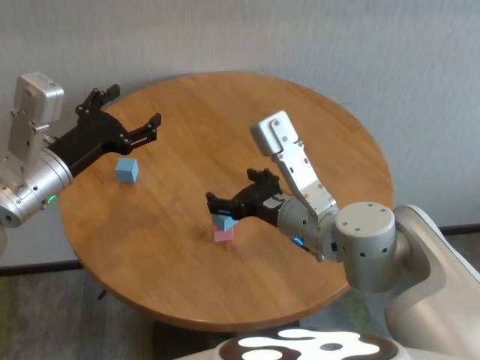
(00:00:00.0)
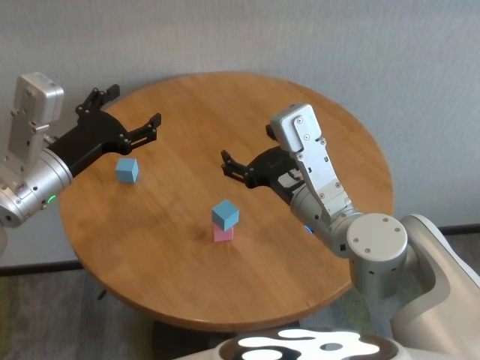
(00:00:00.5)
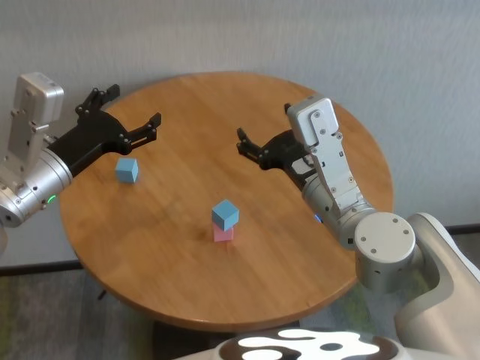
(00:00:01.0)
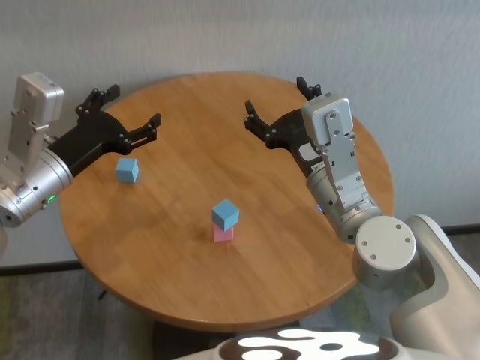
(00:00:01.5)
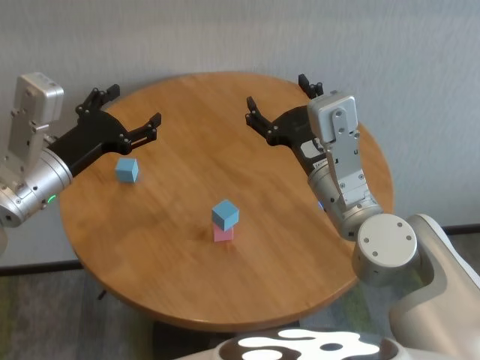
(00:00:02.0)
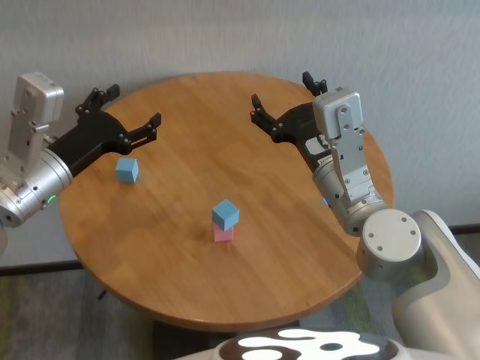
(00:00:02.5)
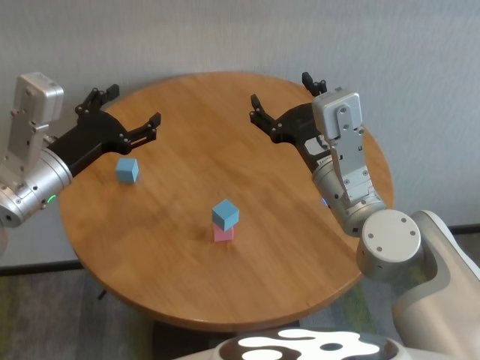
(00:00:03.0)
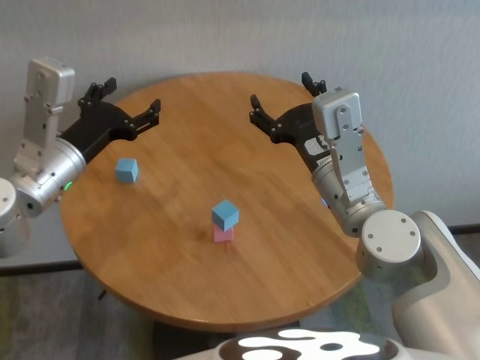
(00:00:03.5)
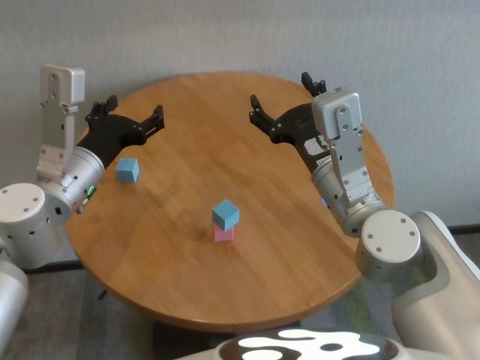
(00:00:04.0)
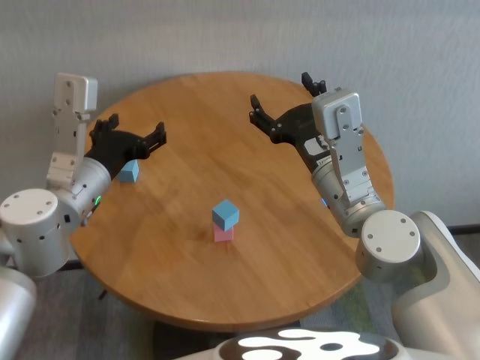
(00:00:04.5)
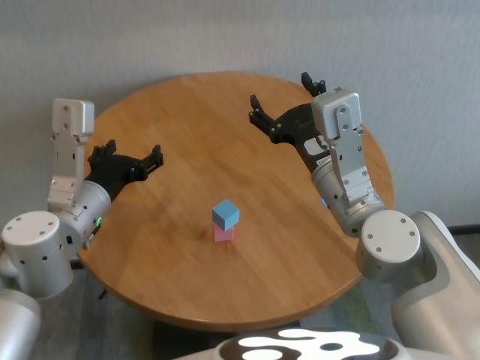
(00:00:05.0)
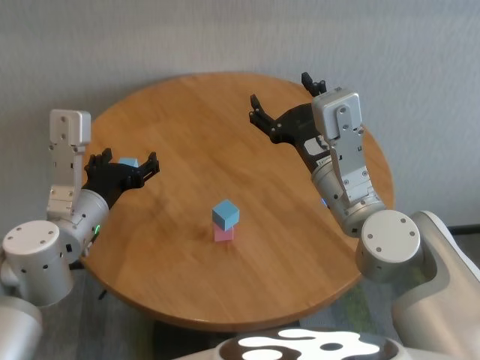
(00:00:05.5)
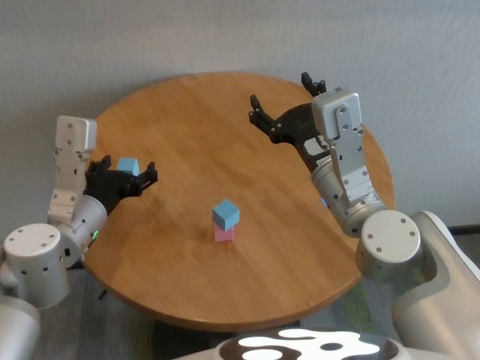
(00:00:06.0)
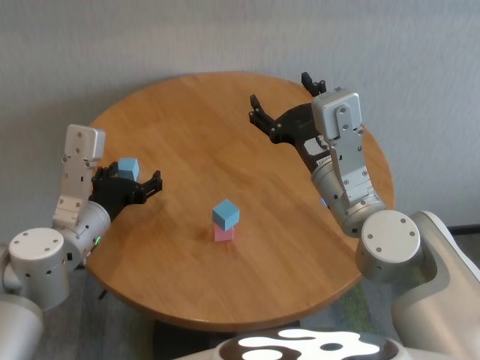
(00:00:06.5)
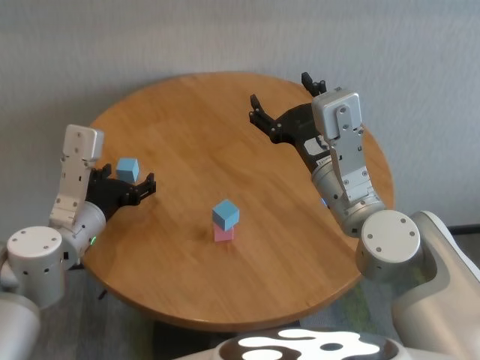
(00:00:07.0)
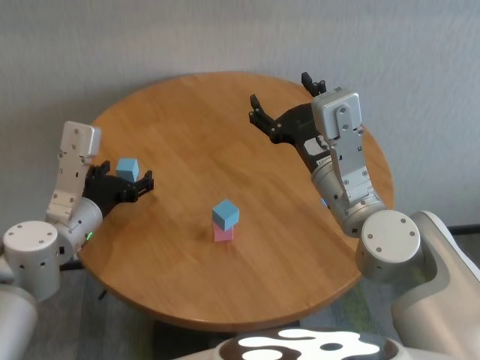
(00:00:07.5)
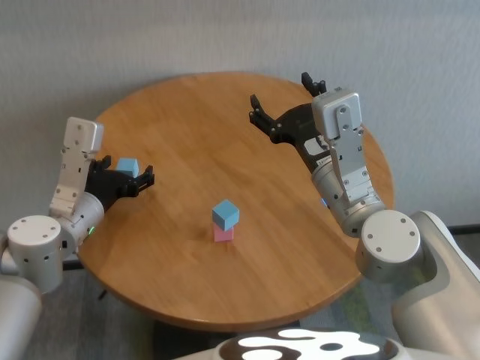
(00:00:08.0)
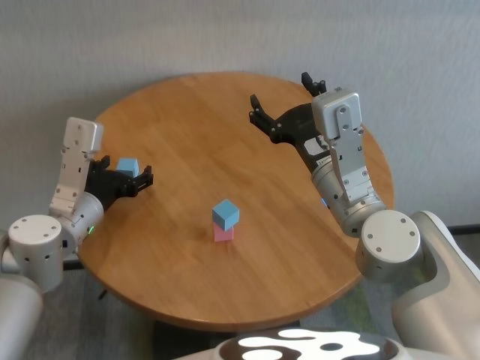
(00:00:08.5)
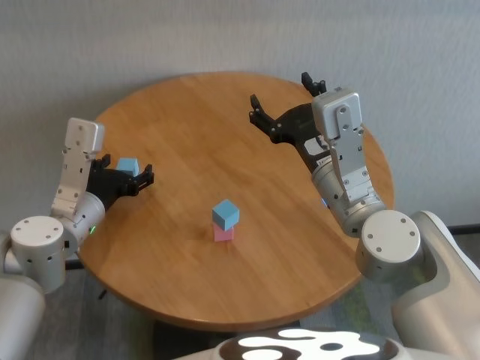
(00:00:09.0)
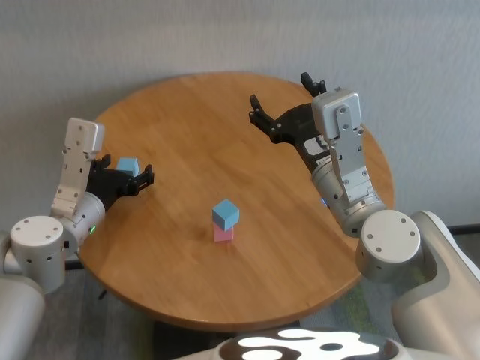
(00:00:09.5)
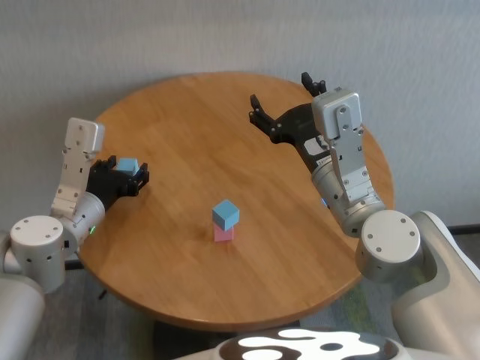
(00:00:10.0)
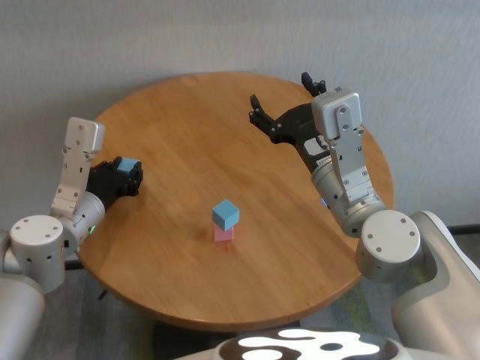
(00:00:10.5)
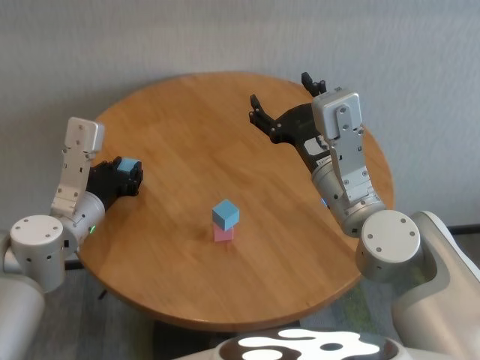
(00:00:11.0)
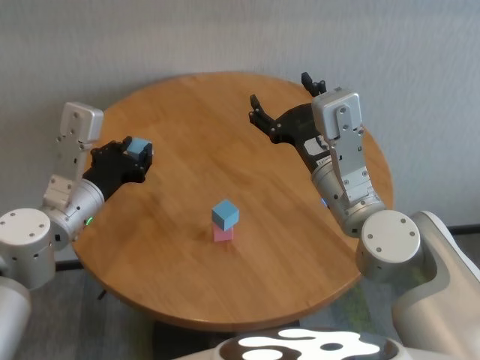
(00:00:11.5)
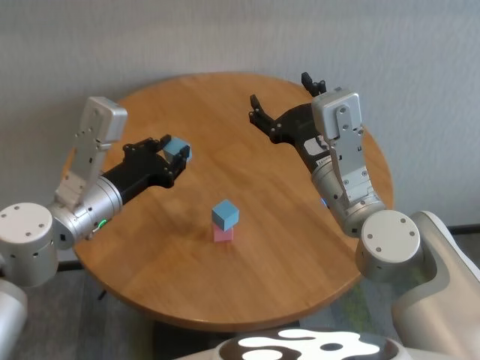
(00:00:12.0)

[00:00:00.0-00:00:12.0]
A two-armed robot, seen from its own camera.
Task of the whole recording: stack building blocks on the table.
Step, 00:00:00.0 to 00:00:11.0: Grasp the blue building block with left gripper.

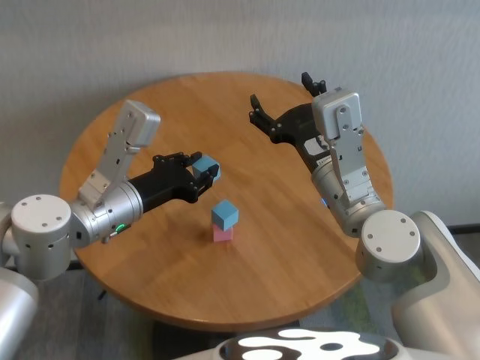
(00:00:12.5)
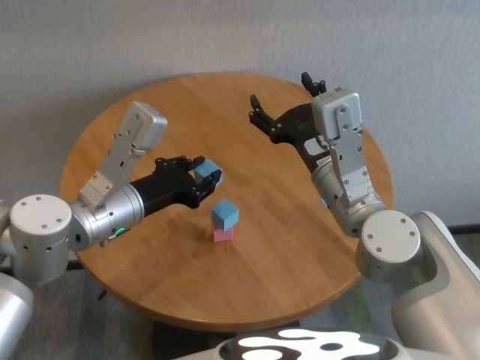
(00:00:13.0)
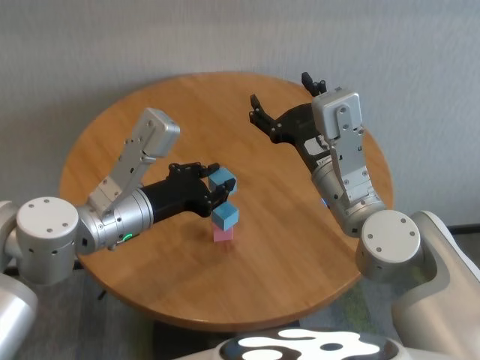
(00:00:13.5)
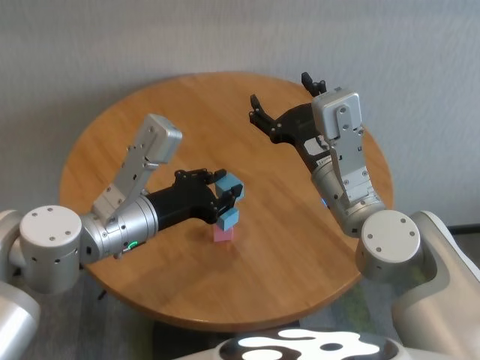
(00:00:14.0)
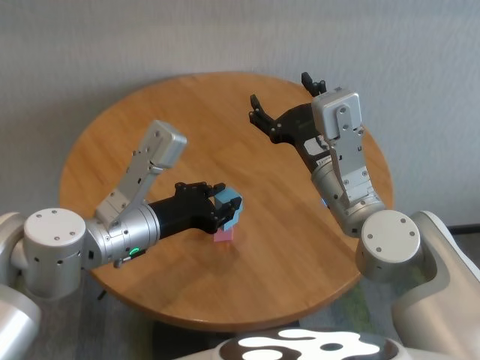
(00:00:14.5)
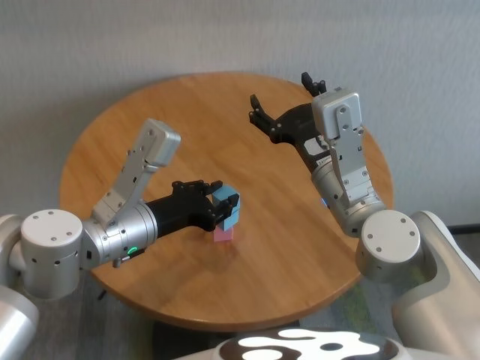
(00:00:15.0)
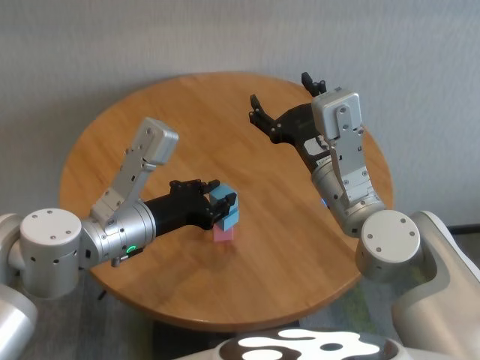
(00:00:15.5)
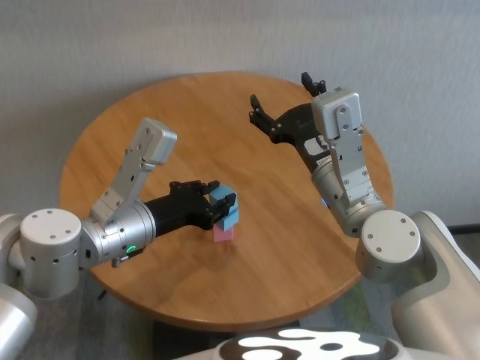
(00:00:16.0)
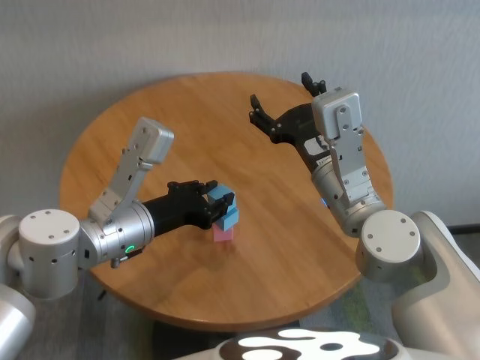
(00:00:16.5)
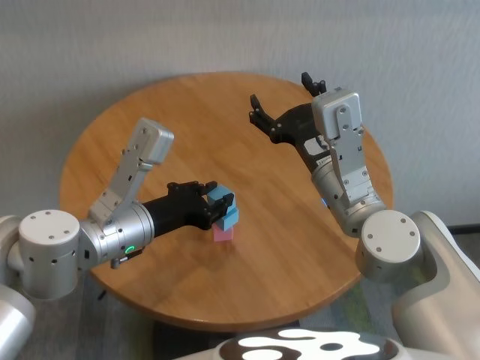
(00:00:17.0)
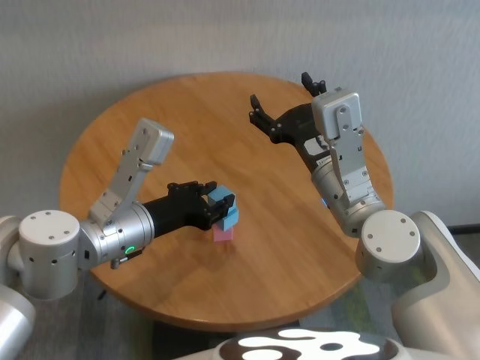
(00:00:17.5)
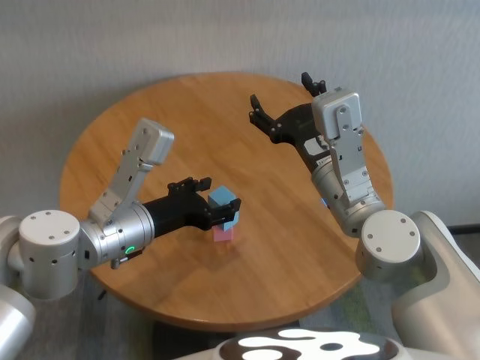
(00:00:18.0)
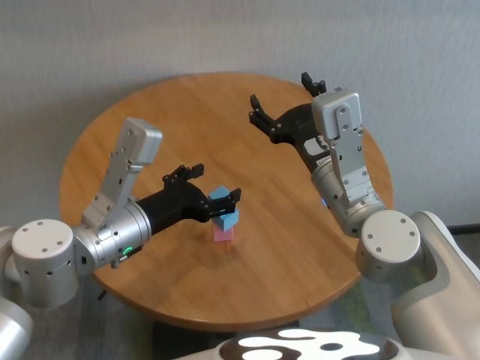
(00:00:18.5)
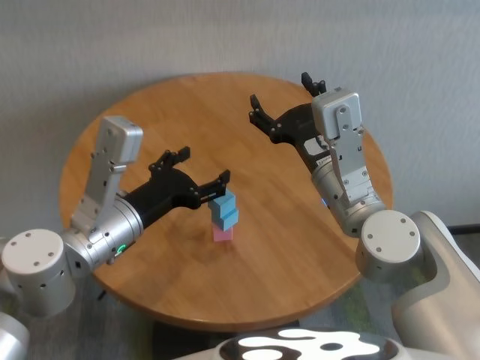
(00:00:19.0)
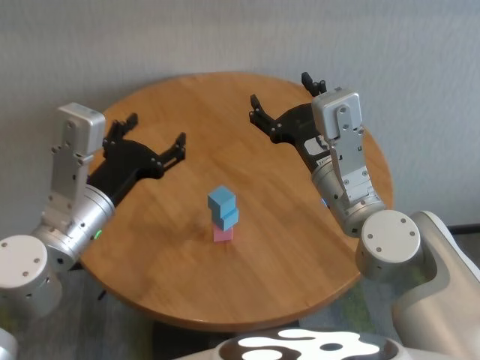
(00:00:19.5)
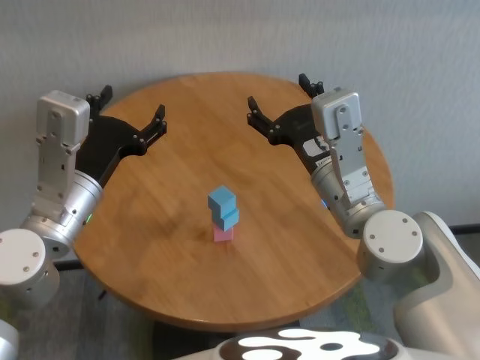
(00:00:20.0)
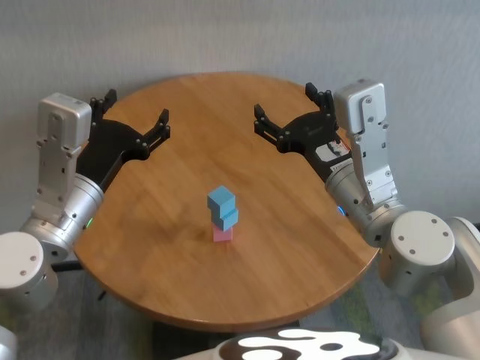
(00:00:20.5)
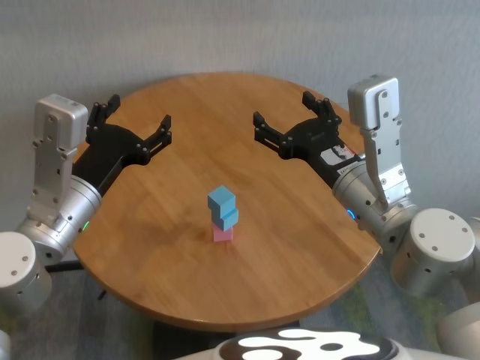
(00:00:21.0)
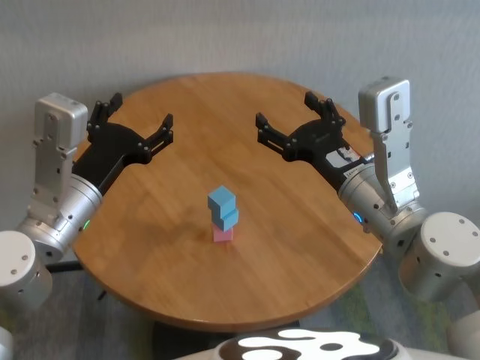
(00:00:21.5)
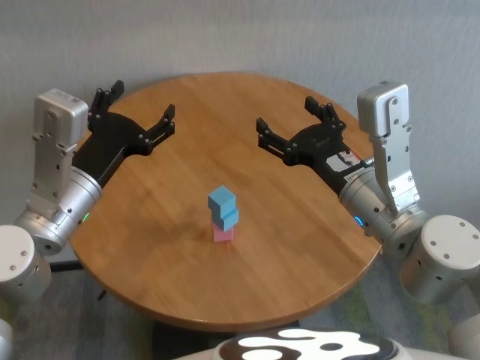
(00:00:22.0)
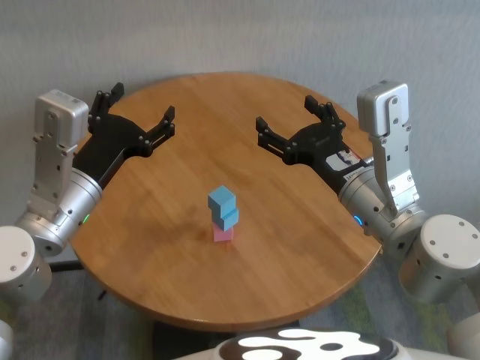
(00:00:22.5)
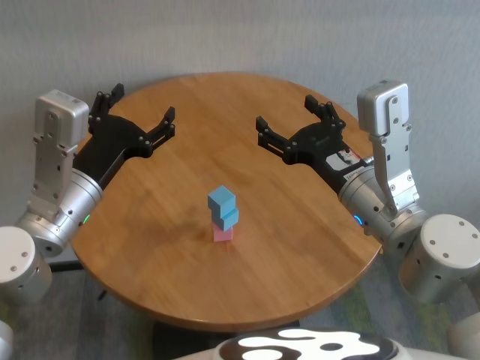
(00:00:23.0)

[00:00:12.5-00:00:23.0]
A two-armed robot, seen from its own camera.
Task of the whole recording: stack building blocks on the table.
Step, 00:00:12.5 to 00:00:18.0: Place the blue building block on the blue building blocks with left gripper.
